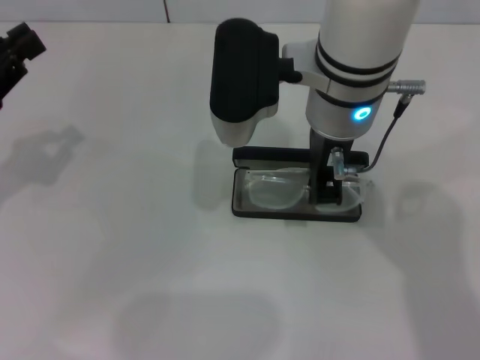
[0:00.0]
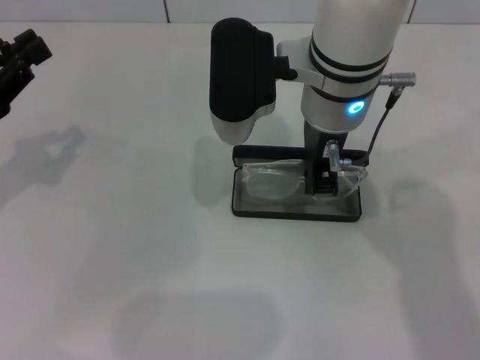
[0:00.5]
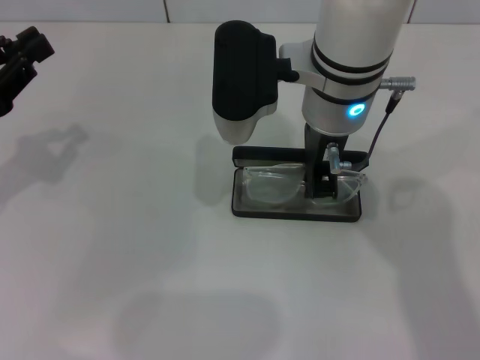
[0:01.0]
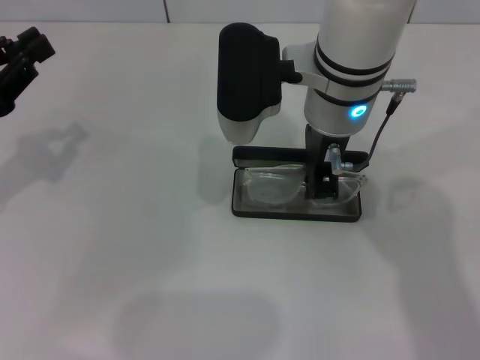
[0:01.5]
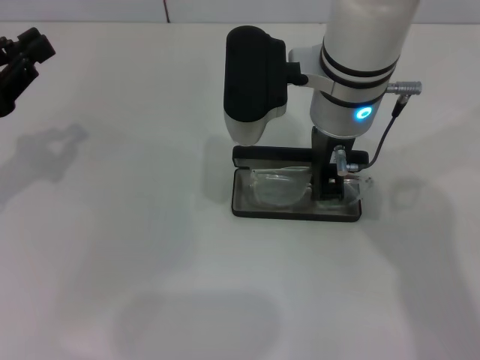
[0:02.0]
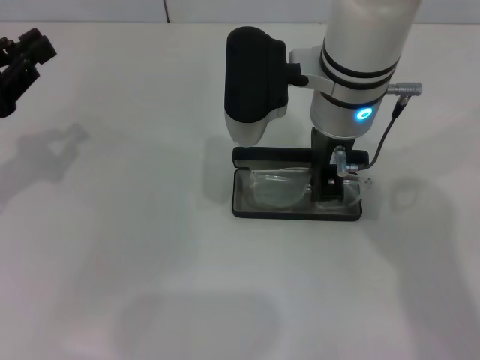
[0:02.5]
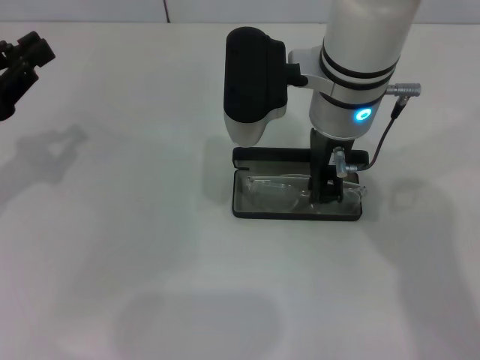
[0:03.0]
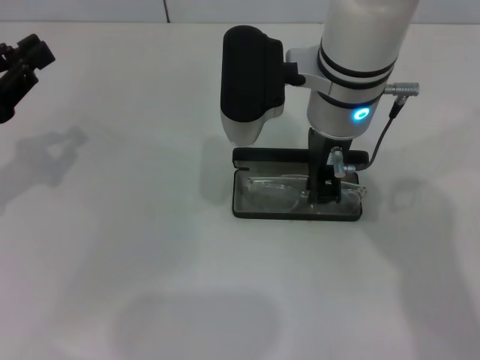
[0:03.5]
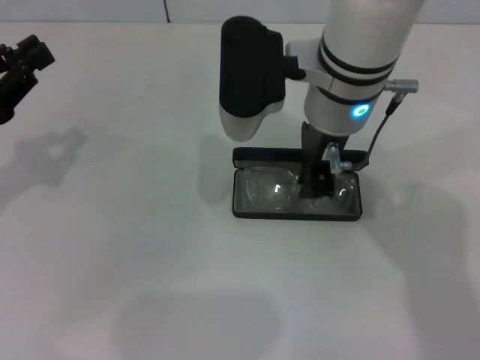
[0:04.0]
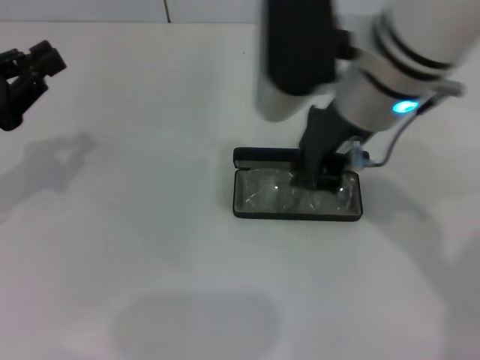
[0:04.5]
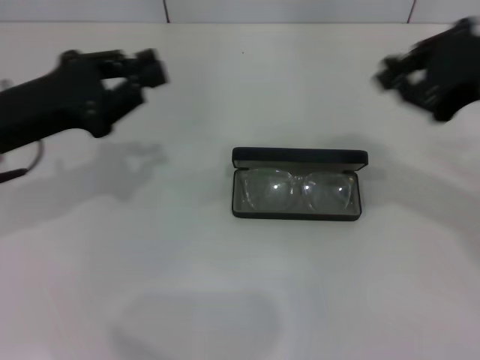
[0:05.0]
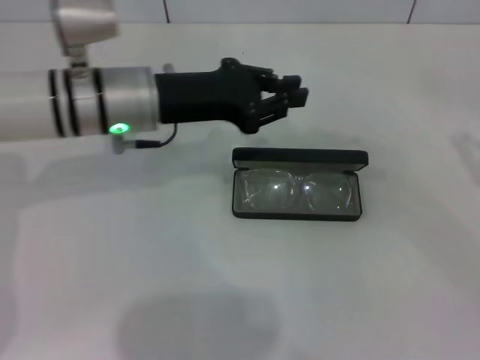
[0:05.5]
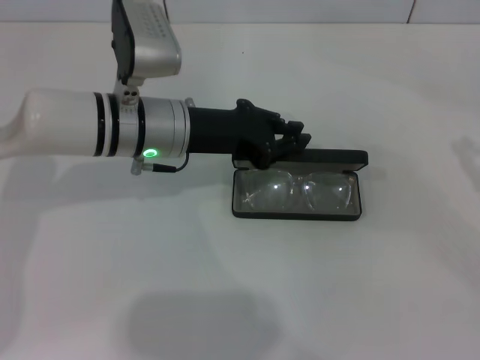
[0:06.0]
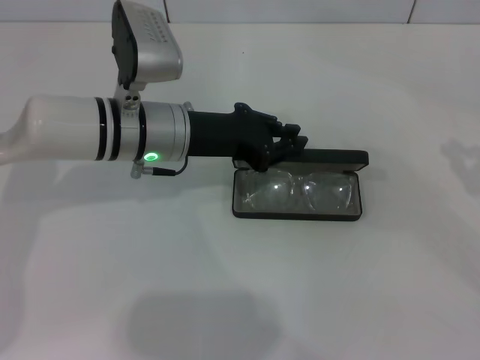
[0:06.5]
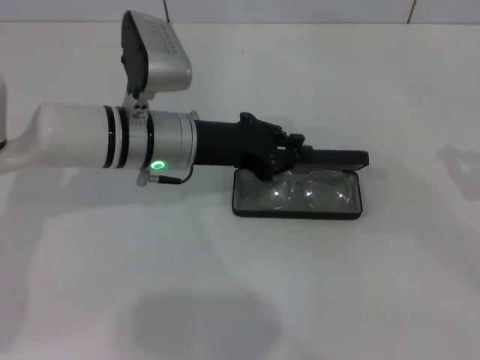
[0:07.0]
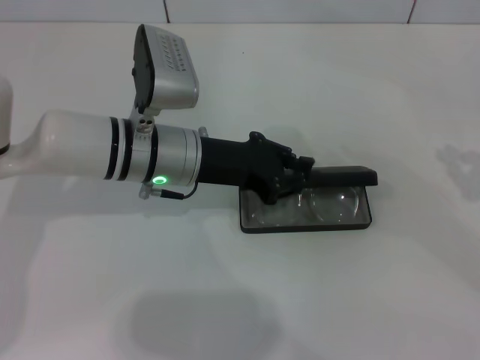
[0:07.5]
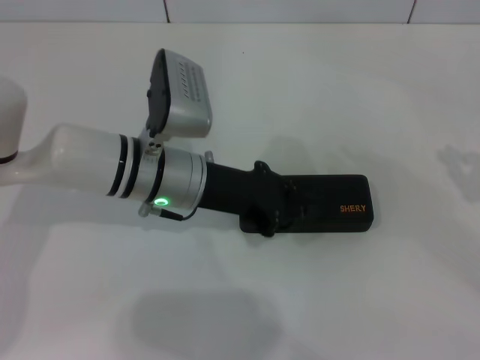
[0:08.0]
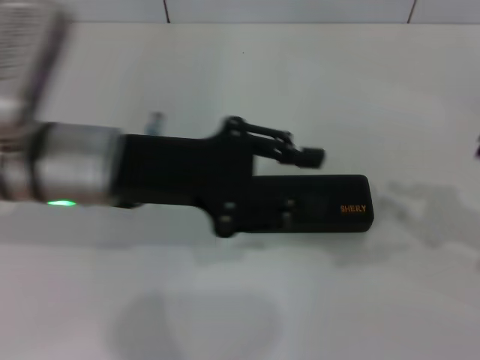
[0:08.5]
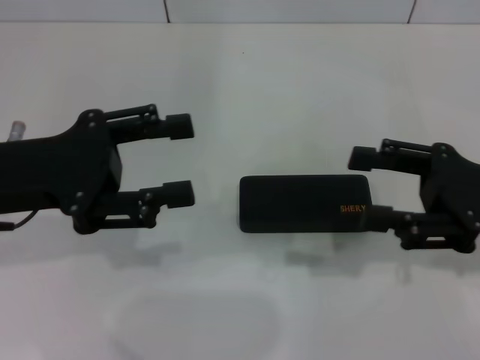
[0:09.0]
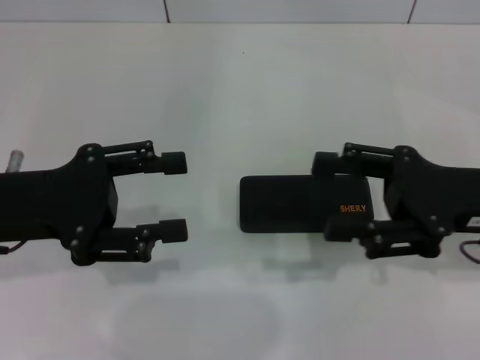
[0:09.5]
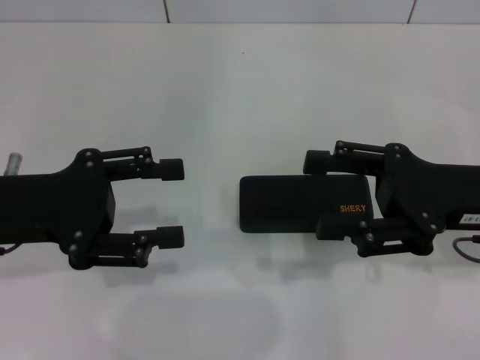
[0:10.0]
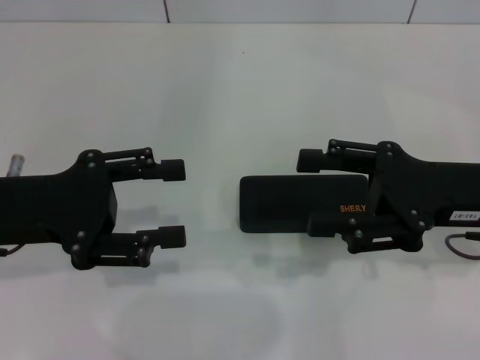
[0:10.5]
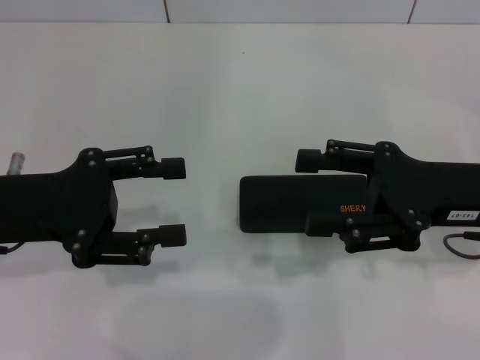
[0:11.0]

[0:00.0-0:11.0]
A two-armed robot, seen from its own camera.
Step, 0:00.0 to 0:04.0: Put the glasses into the case with your right hand.
Step, 0:04.5 to 0:07.5: Close the glasses case with your left hand.
0:00.0 to 0:02.0: The grippers stay close to where they were, moving slightly.
0:02.0 to 0:03.5: Both grippers stay put.
0:03.5 to 0:05.5: The right gripper is displaced to the right by approximately 35 cm; the left gripper shifts about 20 cm to the right and forward.
0:05.5 to 0:07.5: The left gripper ends up some 5 cm from where it was.
0:07.5 to 0:09.0: The left gripper heads to the left, backward and upward, covering some 20 cm, and opens its fingers; the right gripper heads to the left, covering roughly 15 cm, and opens its fingers.
0:09.0 to 0:11.0: The right gripper opens.
